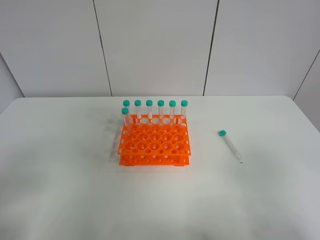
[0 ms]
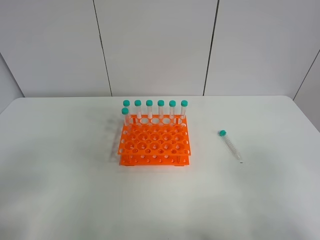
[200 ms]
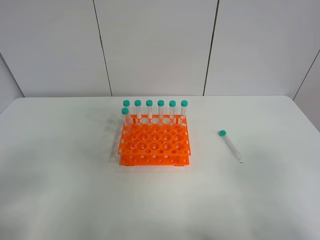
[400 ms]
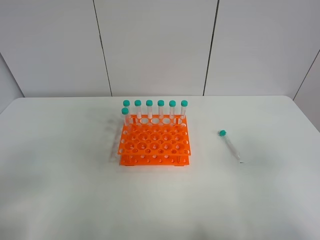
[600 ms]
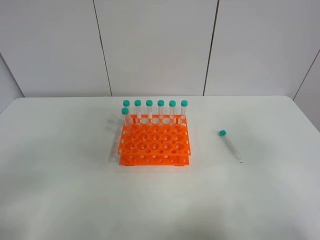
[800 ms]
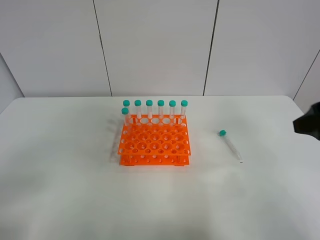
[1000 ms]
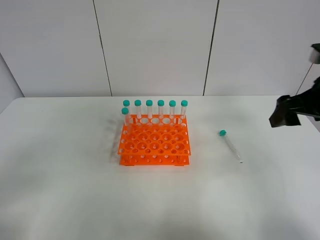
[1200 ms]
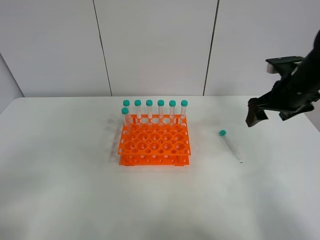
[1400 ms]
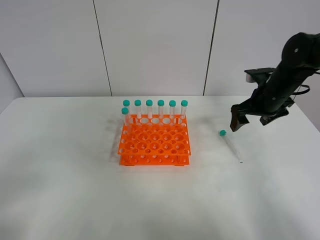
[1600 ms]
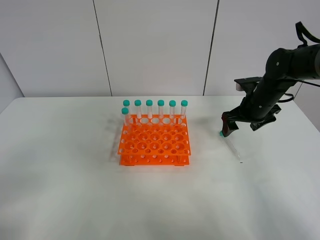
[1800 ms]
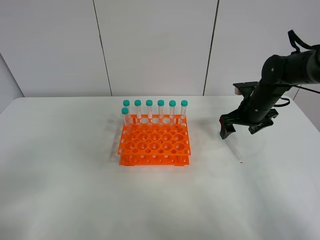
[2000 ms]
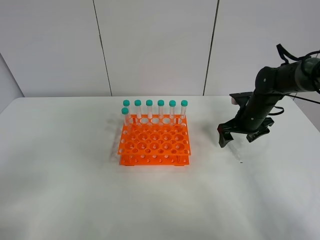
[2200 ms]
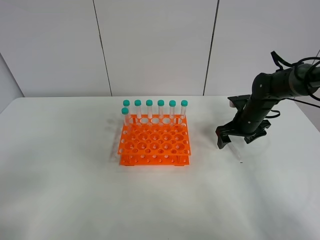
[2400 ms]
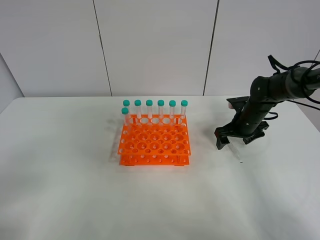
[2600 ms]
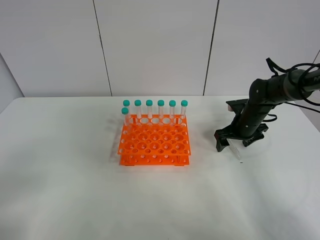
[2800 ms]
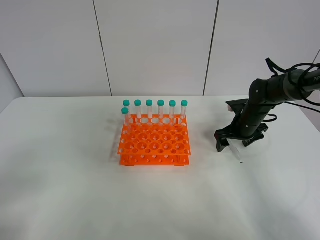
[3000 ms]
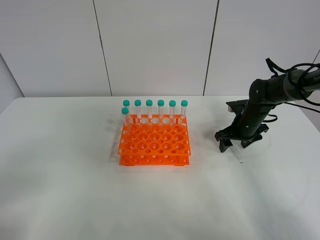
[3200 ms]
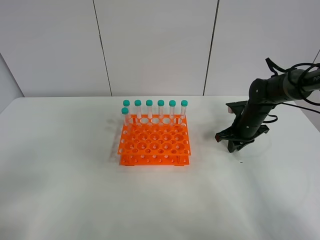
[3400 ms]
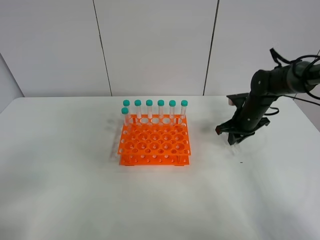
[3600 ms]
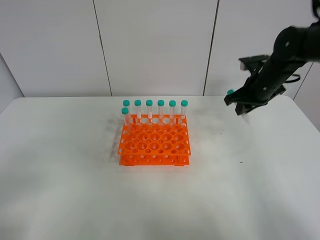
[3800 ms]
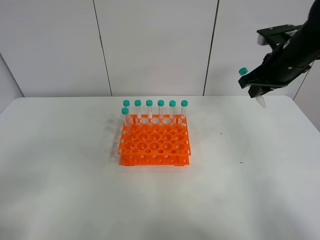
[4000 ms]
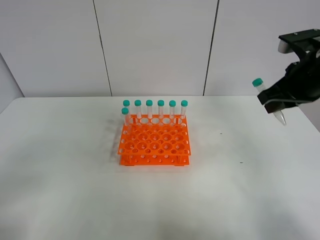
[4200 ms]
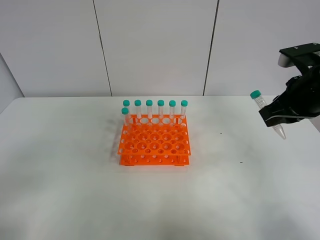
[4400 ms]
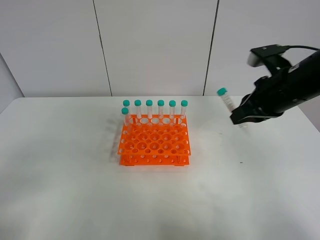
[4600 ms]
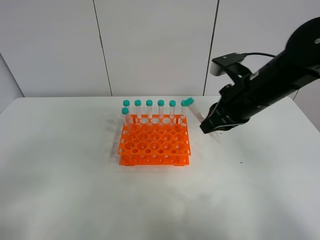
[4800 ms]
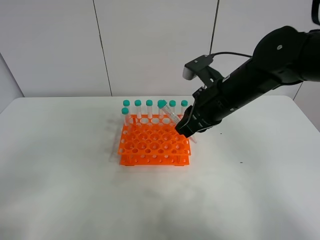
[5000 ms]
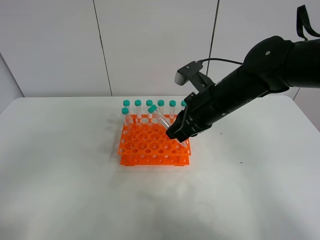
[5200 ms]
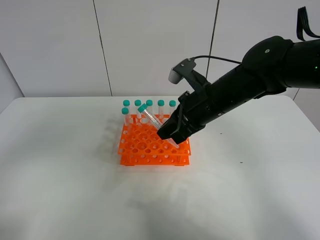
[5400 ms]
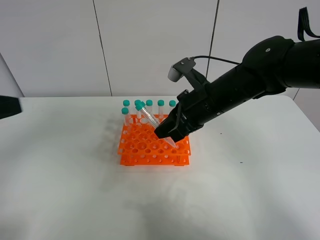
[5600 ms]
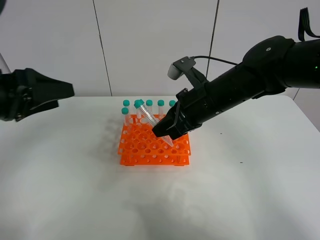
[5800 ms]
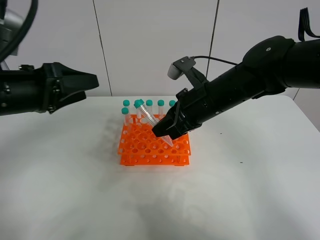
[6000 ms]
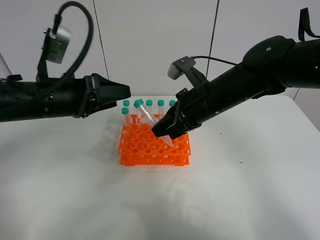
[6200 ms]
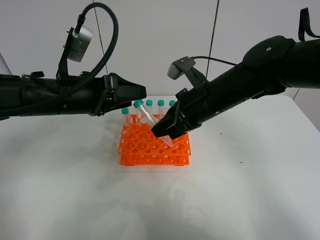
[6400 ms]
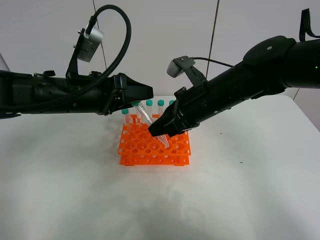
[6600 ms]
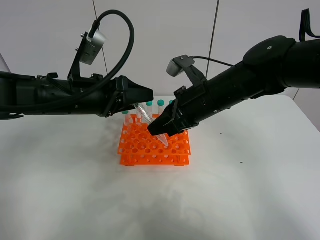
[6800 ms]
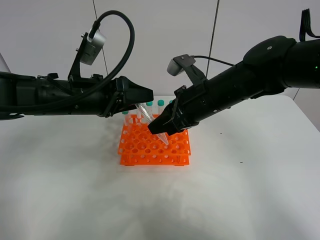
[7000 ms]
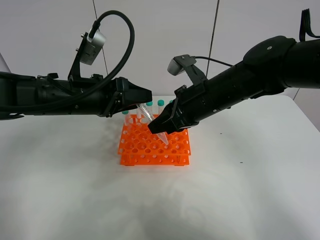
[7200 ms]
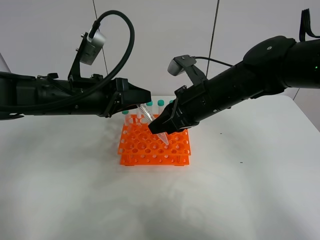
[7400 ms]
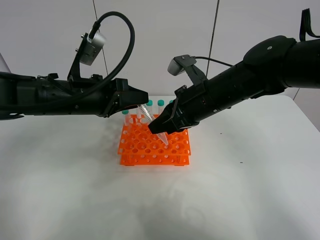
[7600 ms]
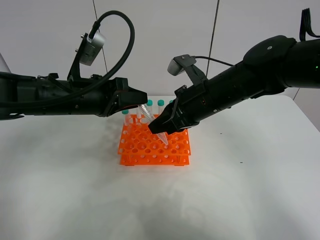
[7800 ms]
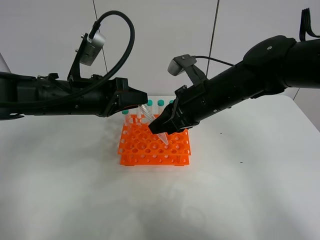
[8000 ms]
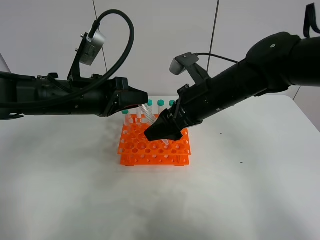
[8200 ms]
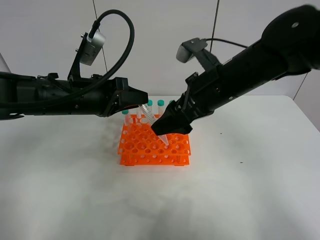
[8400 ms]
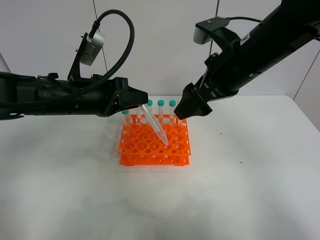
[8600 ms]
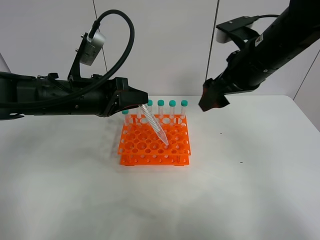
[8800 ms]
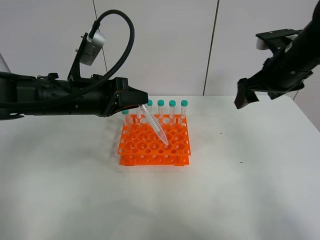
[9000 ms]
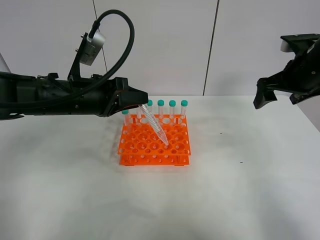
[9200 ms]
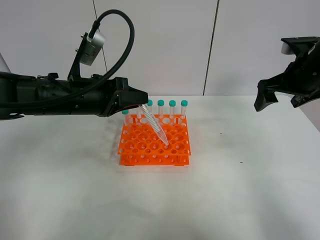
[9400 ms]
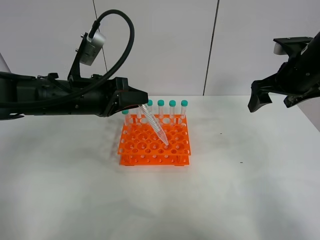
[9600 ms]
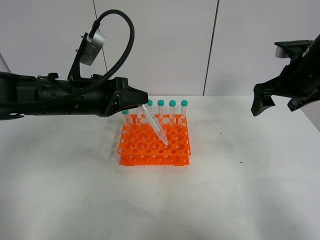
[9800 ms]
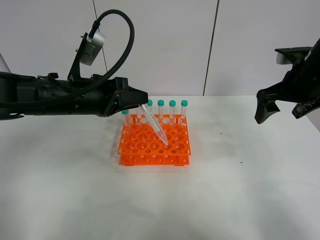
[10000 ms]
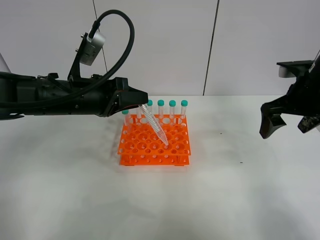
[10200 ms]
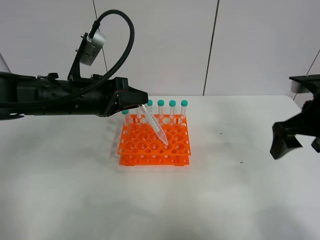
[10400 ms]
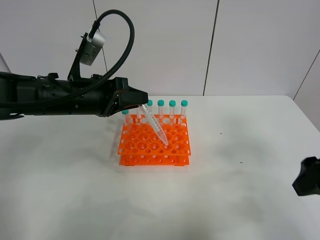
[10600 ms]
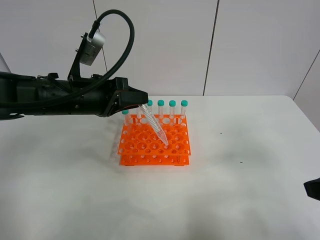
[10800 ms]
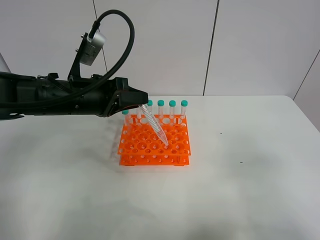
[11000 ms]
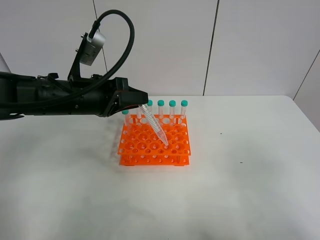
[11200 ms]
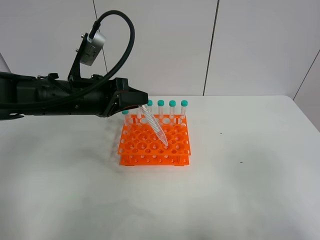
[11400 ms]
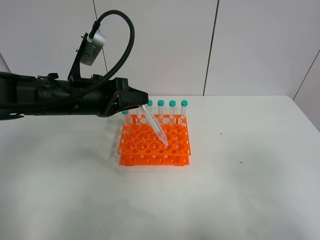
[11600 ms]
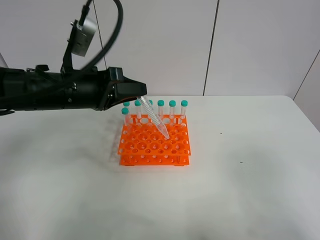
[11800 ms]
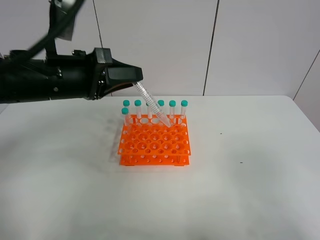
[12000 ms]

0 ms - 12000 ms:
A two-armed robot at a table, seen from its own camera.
Task of the whole recording: Put the test tube on the table back onto the test tube rack.
Step, 0 ms - 3400 ms: Pick up the test tube with the right gripper.
Step, 3600 ms - 8000 ms: Move the test tube from the right gripper to the left gripper.
0 ms - 1600 ms: The right gripper travels forward by about 35 cm.
1600 ms - 3000 ms: The right gripper moves downward, roughly 10 cm.
3000 ms - 4400 ms: The right gripper moves upward and backward, about 25 cm, and closes.
4400 ms - 6000 ms: The left gripper moves forward, about 25 cm. The right gripper is displaced to the left by some 15 cm.
6000 ms - 7600 ms: The left gripper is displaced to the right by roughly 5 cm, and closes its fingers.
7600 ms - 9000 ms: The right gripper is displaced to the right by some 15 cm, and opens its fingers.
9000 ms - 10400 ms: The right gripper heads backward, covering approximately 10 cm.
10400 ms - 12000 ms: The right gripper heads backward, covering approximately 25 cm, while the left gripper heads upward, covering approximately 5 cm.

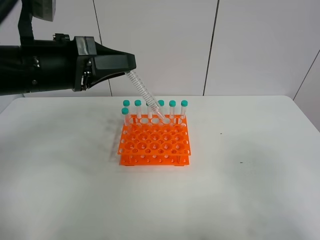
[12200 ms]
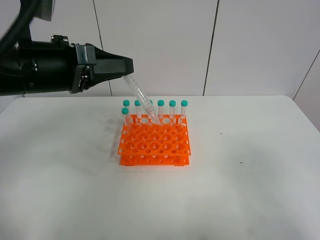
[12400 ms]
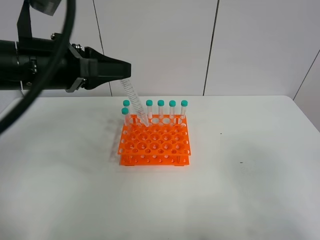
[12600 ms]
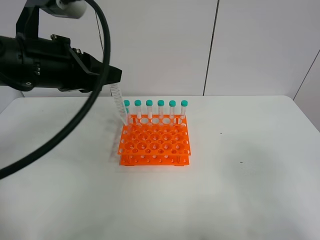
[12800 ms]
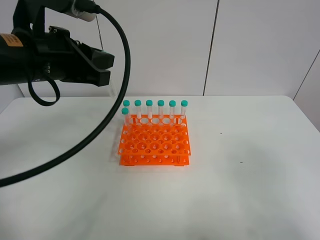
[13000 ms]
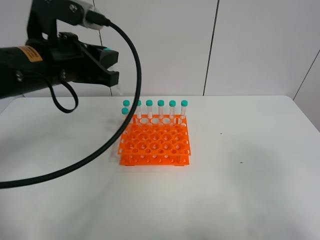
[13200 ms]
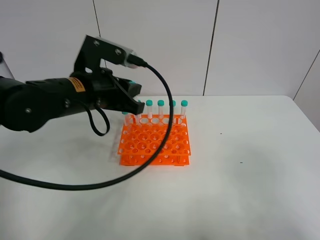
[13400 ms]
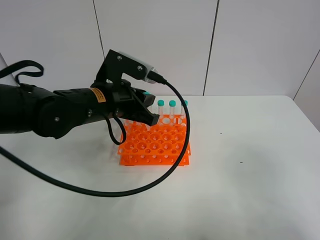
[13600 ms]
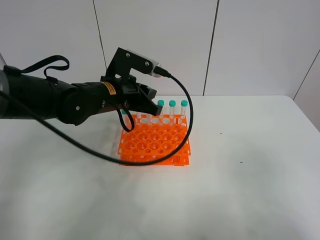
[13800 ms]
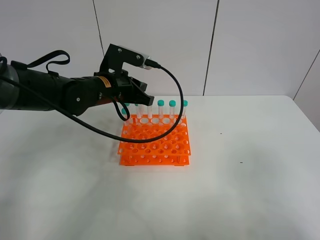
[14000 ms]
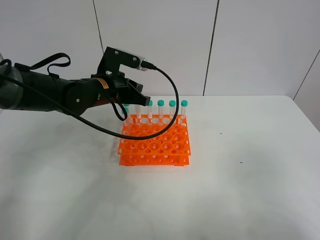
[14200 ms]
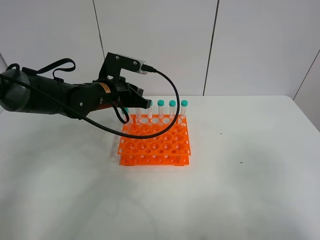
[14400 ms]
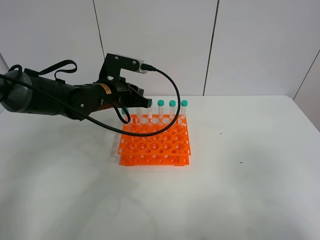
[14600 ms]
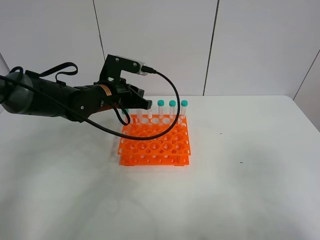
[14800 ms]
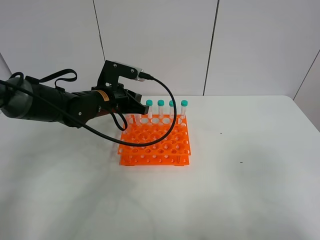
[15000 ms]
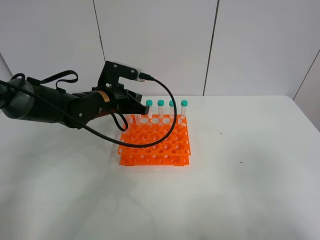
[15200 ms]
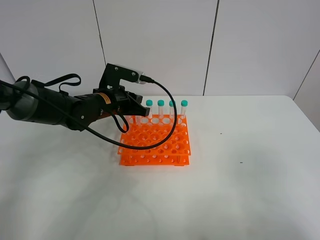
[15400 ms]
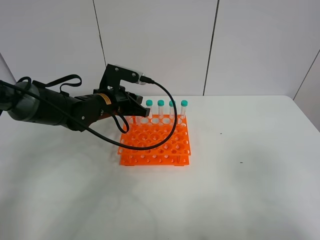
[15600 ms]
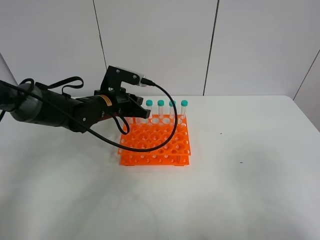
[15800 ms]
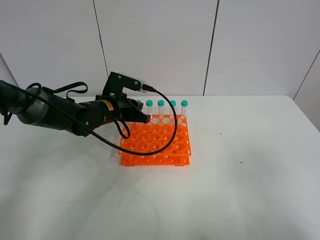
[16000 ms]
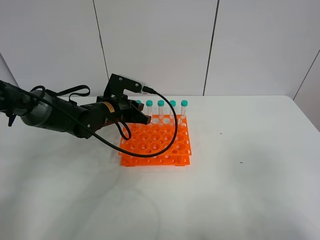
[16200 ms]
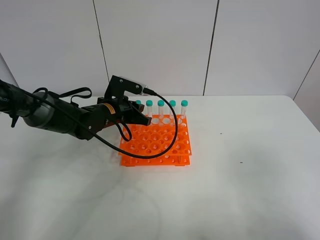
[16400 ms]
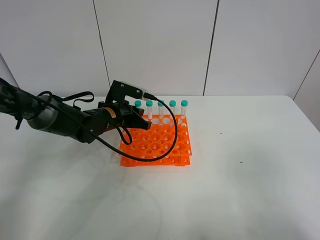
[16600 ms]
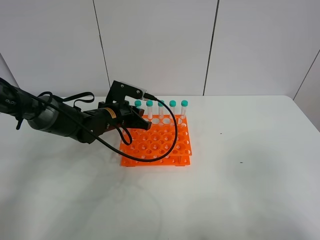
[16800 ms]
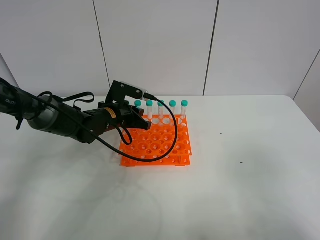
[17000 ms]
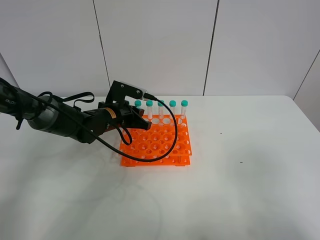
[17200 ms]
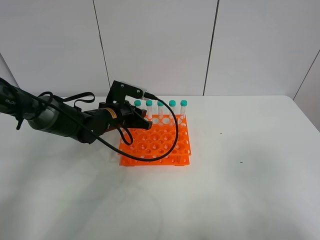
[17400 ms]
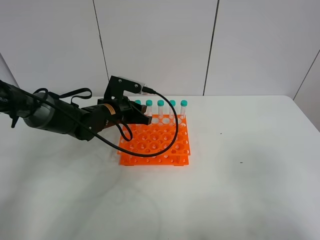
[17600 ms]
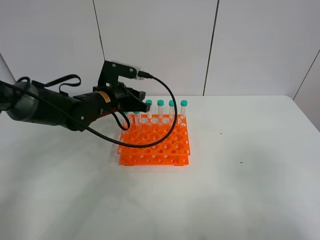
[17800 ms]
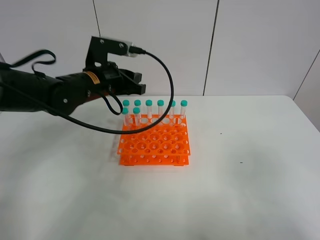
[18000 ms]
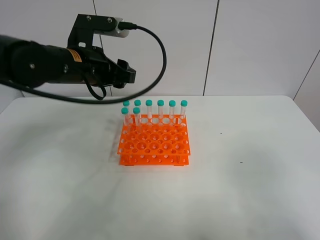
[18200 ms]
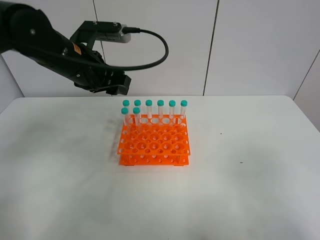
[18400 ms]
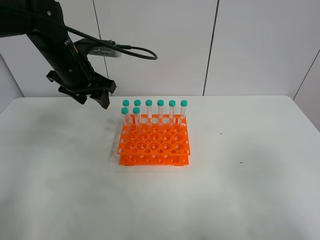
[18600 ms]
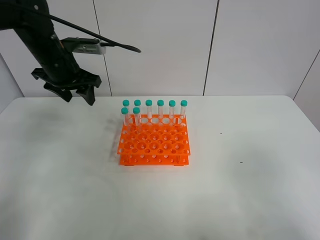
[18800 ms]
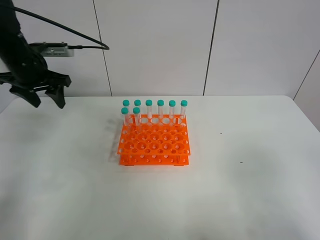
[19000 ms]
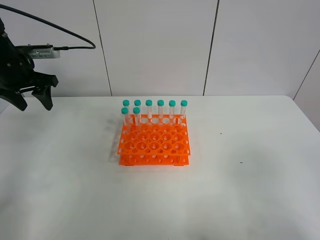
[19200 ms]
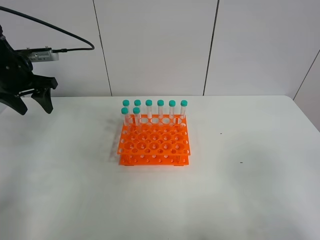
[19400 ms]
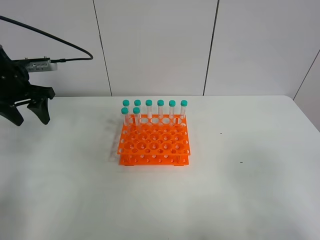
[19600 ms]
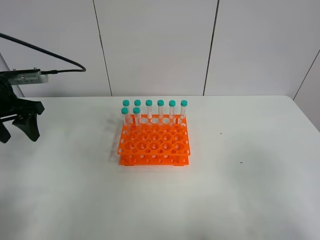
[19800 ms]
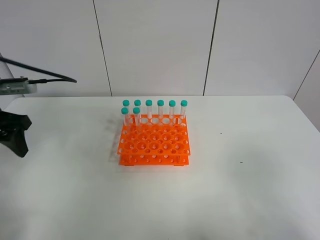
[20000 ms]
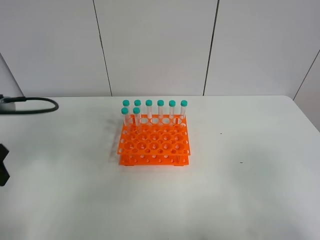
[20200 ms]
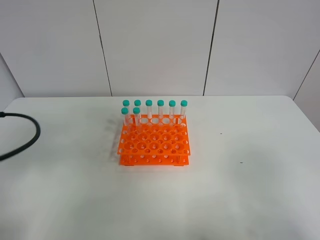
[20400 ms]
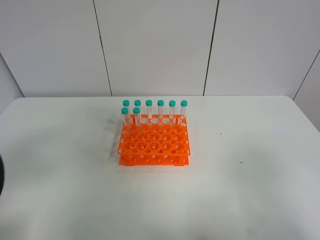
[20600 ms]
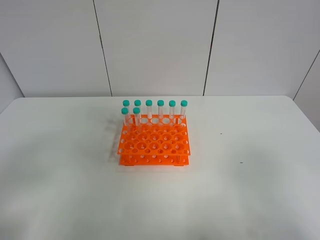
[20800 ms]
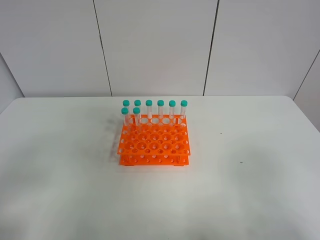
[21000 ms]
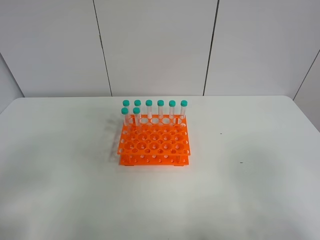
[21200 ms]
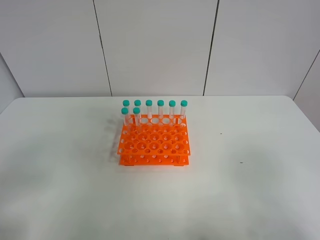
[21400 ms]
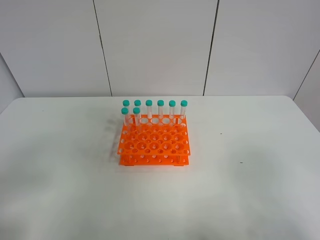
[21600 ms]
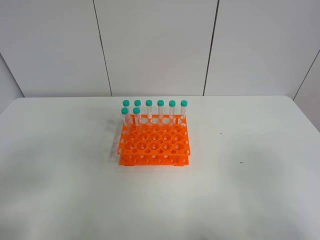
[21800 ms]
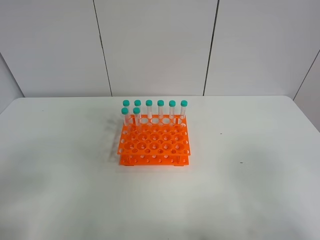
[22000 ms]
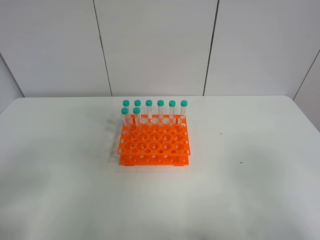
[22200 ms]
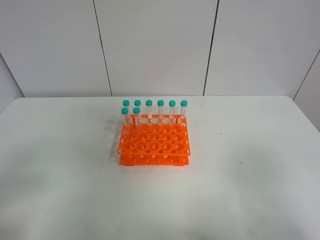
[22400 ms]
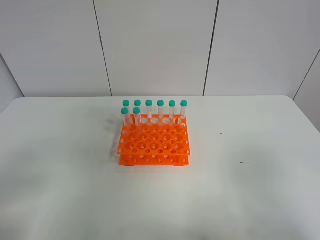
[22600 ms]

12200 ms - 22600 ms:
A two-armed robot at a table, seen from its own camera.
Task of the whole recording: Put the test tube on the table back onto the test tube rack.
Step, 12200 ms - 17400 ms: Place the test tube on the test tube rack with the left gripper.
12200 ms - 13600 ms: The left gripper shifts about 10 cm downward, to the right and forward.
13600 ms - 15200 ms: The left gripper moves forward and downward, some 10 cm.
15200 ms - 16600 ms: The left gripper heads downward, covering approximately 5 cm.
16600 ms - 18200 ms: The left gripper is displaced upward by approximately 15 cm, and opens its fingers.
18200 ms - 19600 ms: The left gripper goes approximately 15 cm to the left.
19600 ms - 21200 ms: The left gripper travels backward by about 35 cm.
